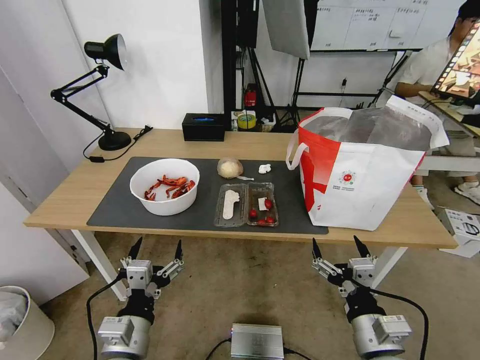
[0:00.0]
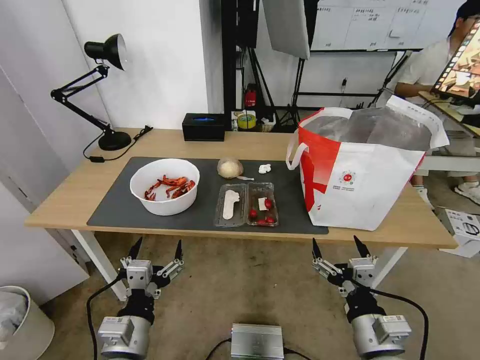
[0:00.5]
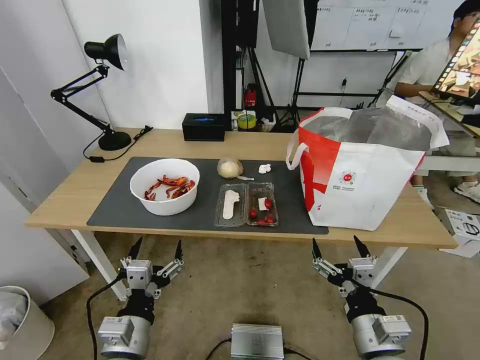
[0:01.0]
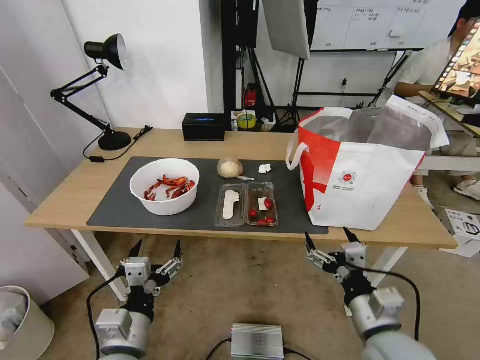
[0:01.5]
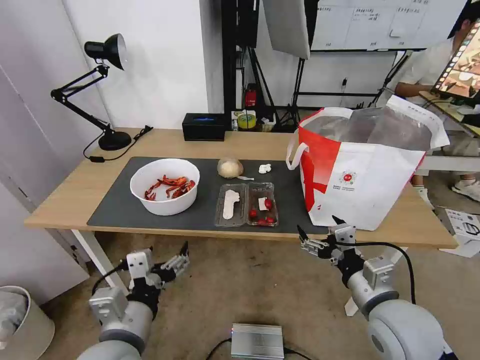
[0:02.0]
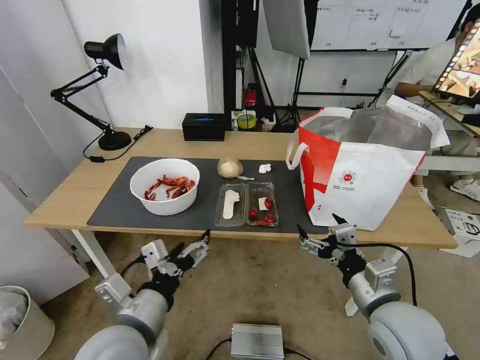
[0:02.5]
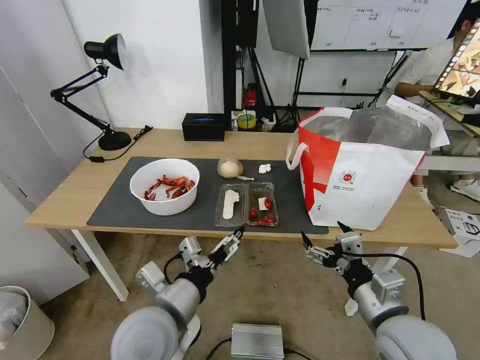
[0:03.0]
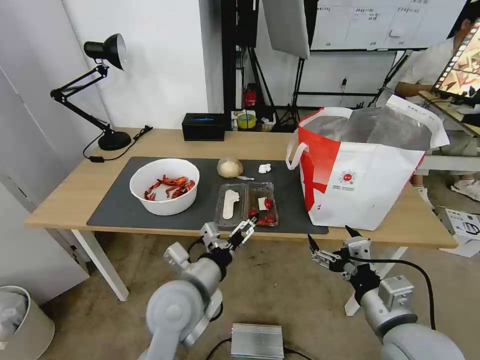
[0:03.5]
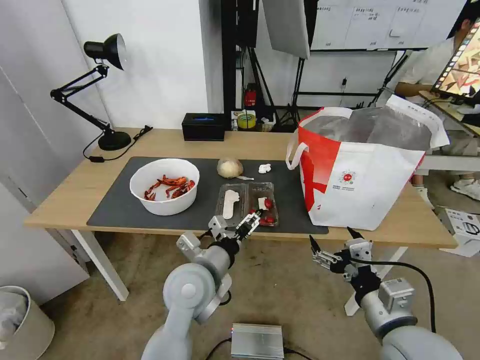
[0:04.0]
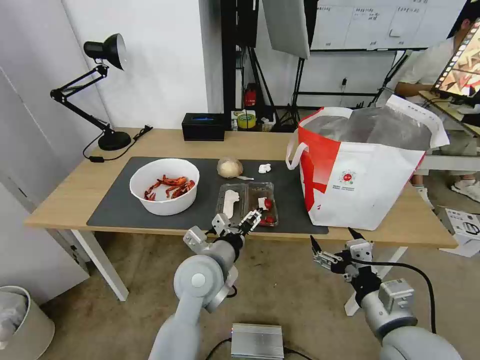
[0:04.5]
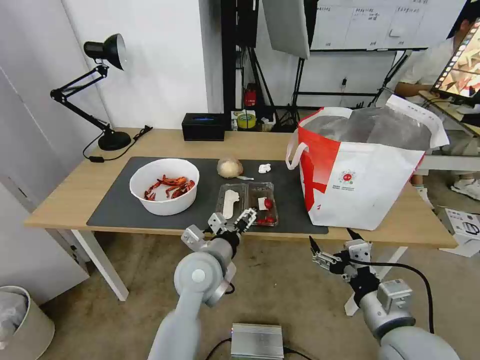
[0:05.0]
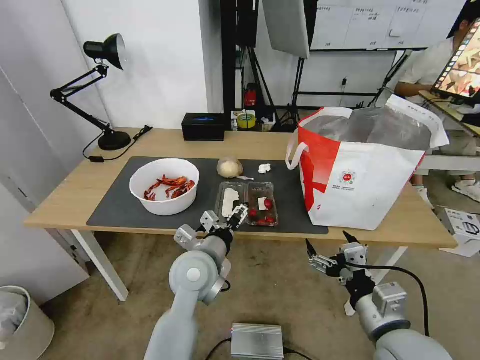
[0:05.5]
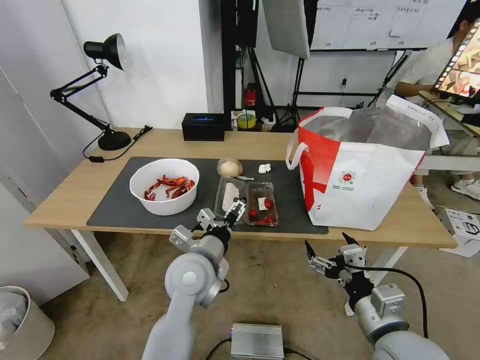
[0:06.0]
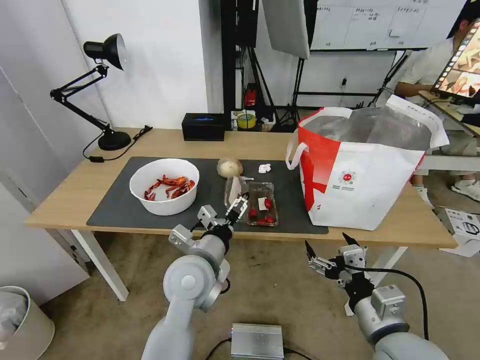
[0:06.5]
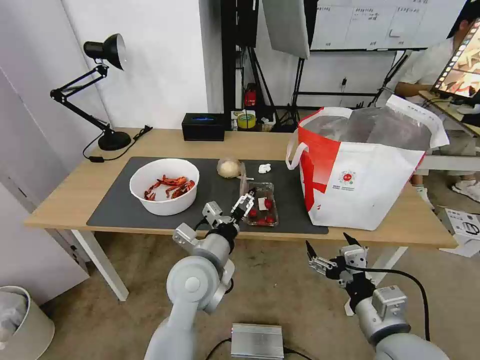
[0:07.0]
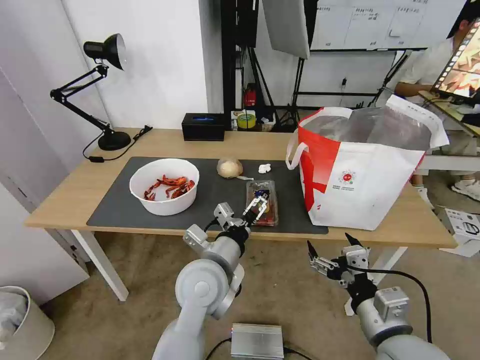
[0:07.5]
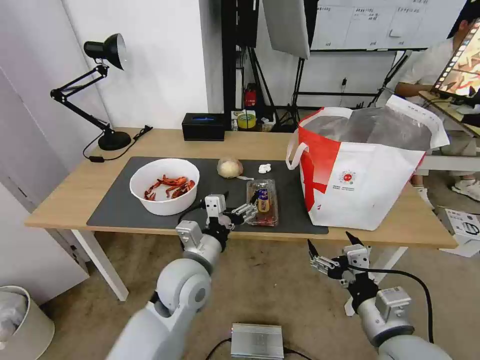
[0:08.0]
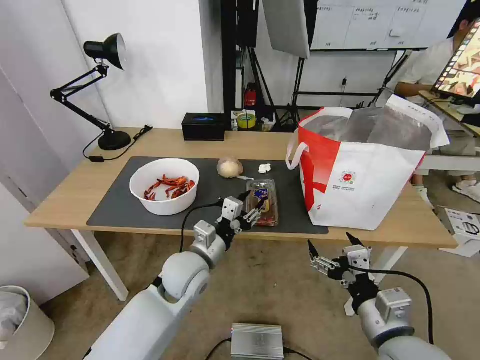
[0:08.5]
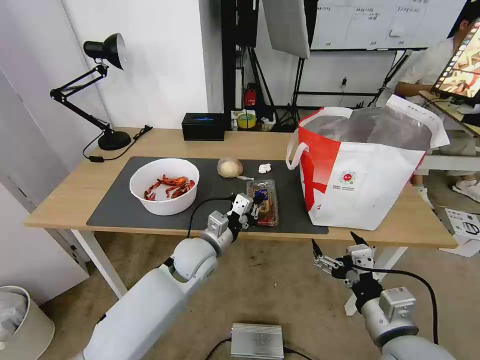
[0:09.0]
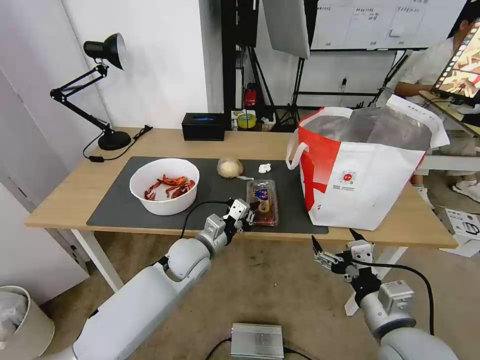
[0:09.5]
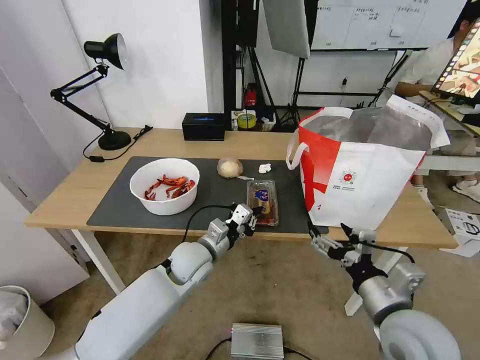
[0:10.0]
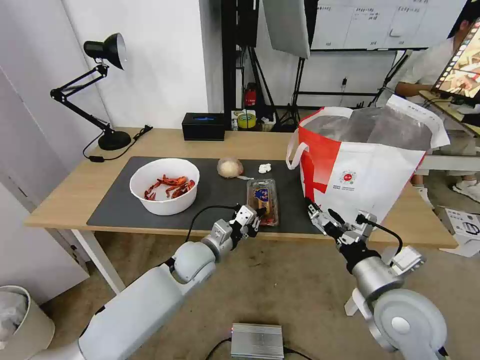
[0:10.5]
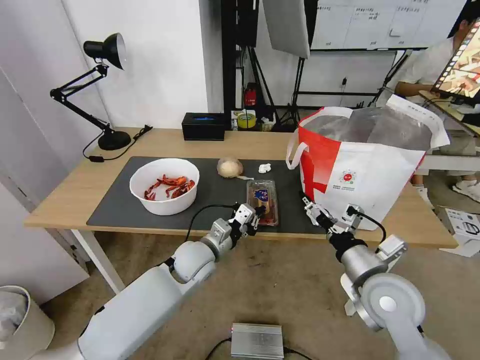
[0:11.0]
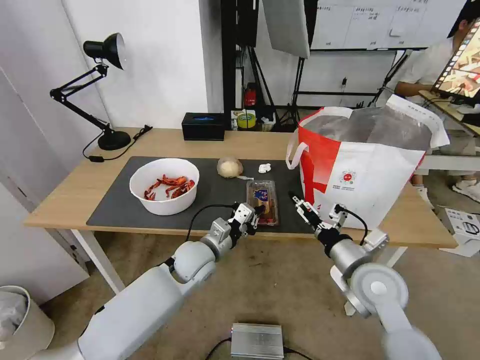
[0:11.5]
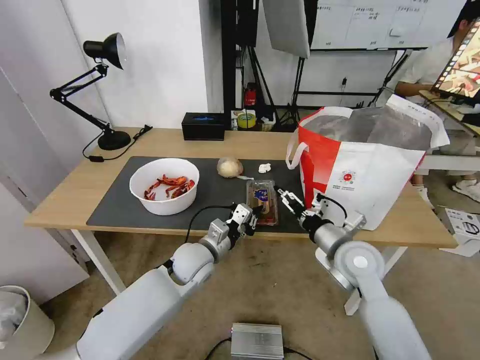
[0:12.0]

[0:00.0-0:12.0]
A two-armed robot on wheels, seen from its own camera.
Task of the whole recording: Pick up the trash from the table and place it into the takeout bag.
0:02.0 to 0:04.0: The left gripper moves forward and to the right, about 15 cm.
0:04.0 to 0:06.0: The grippers stay close to where they were, moving slightly.
0:08.0 to 0:10.0: The left gripper goes about 10 cm forward and downward, and closes up.
0:10.0 to 0:12.0: The right gripper goes roughly 15 cm forward.

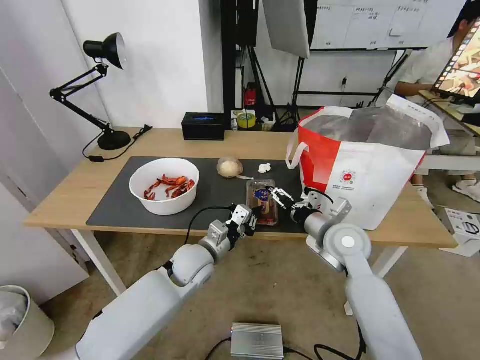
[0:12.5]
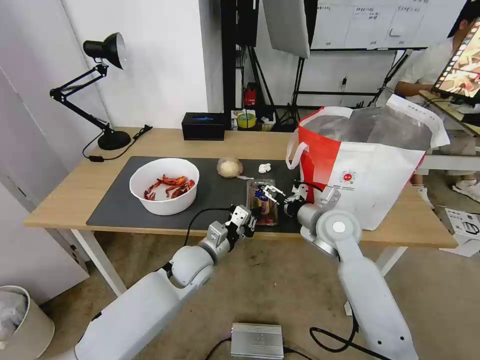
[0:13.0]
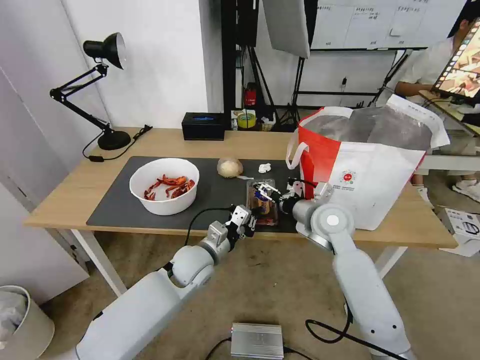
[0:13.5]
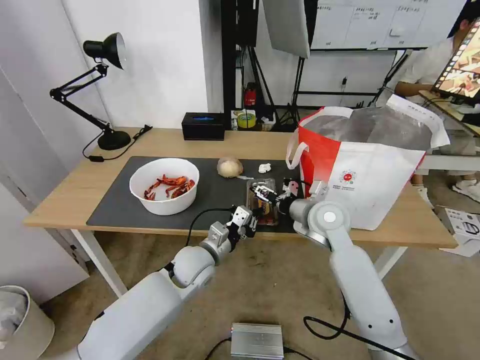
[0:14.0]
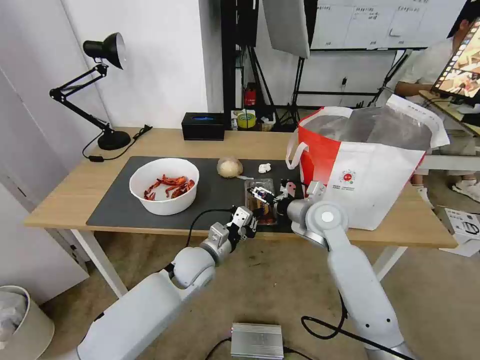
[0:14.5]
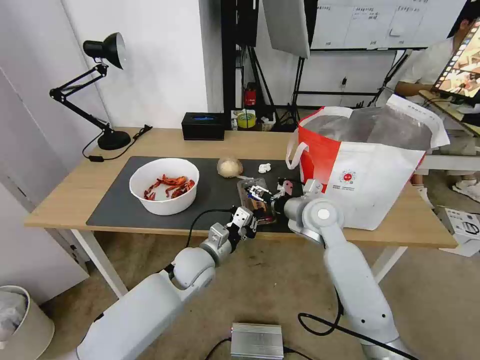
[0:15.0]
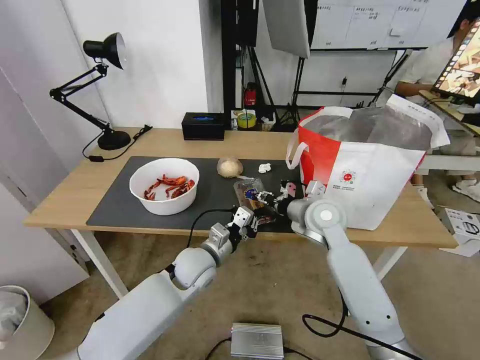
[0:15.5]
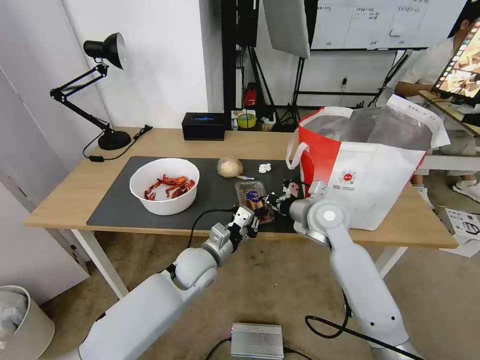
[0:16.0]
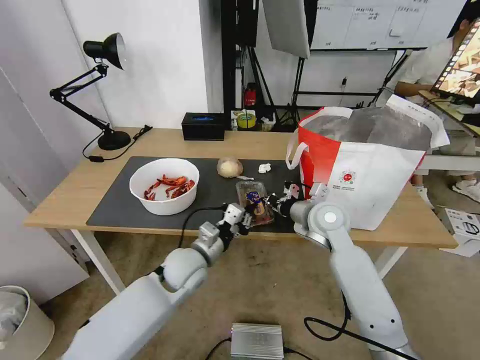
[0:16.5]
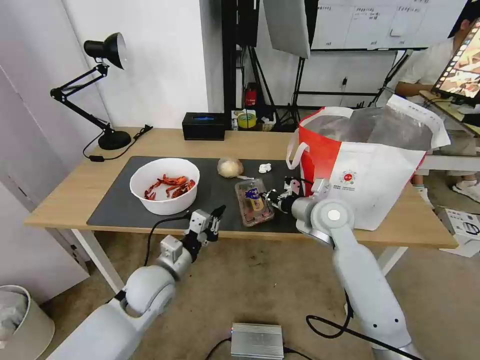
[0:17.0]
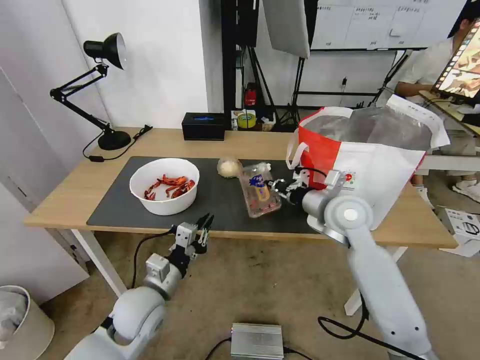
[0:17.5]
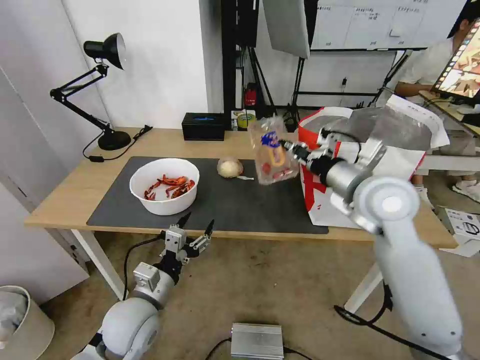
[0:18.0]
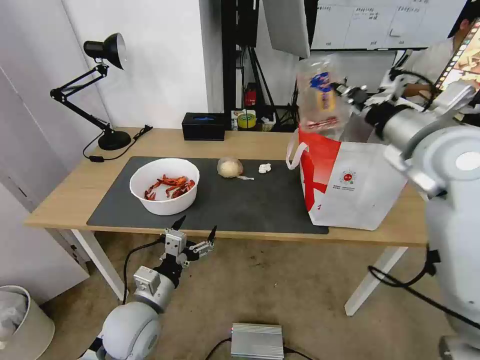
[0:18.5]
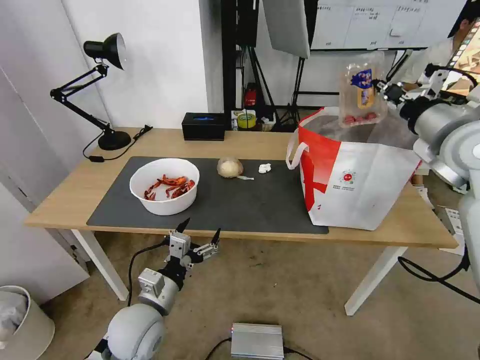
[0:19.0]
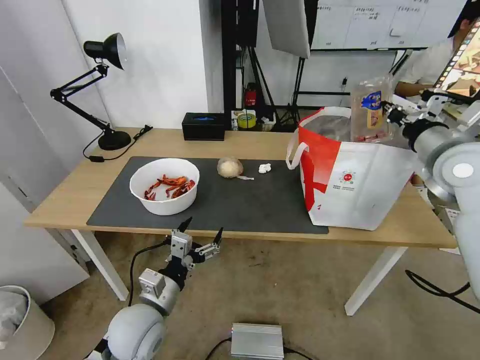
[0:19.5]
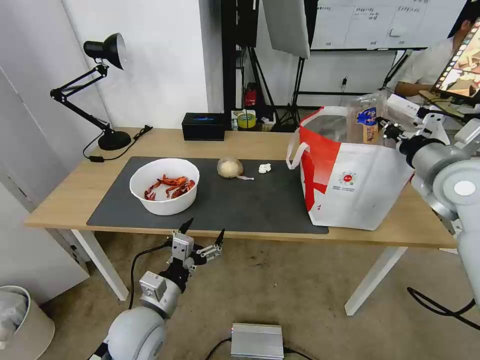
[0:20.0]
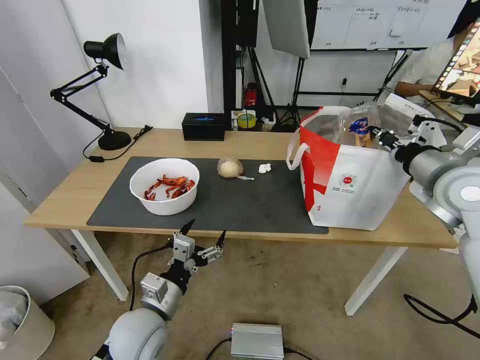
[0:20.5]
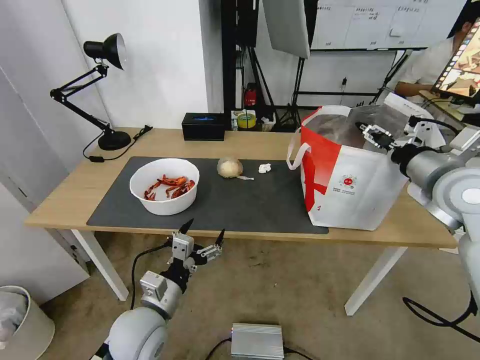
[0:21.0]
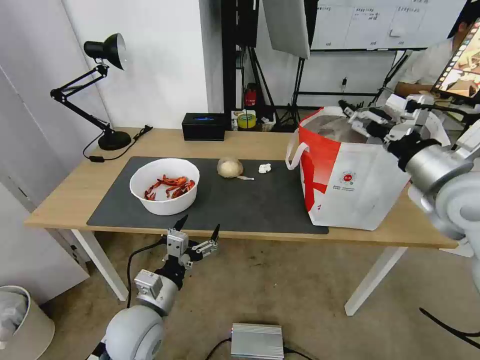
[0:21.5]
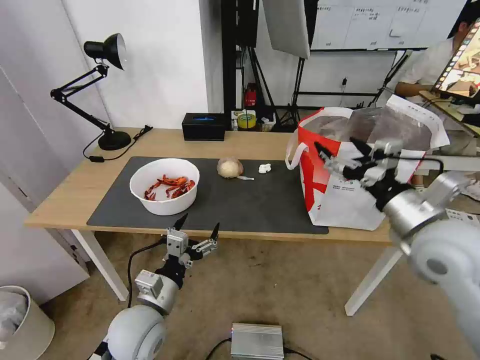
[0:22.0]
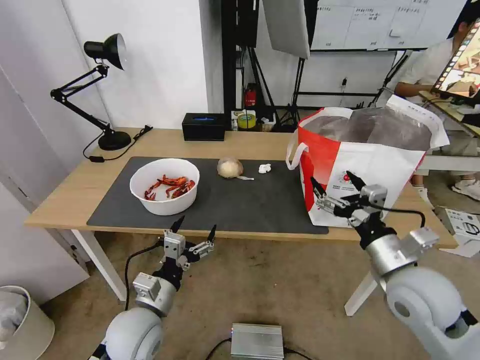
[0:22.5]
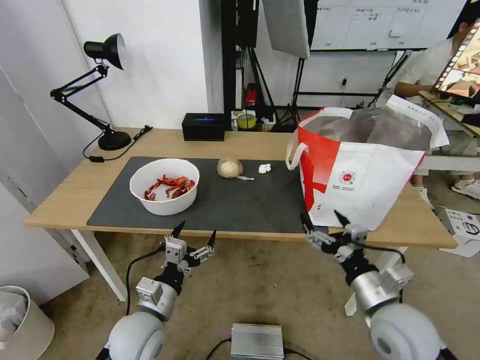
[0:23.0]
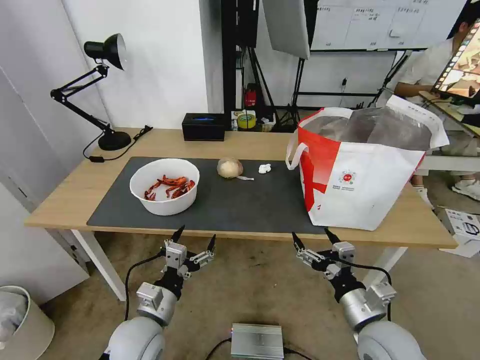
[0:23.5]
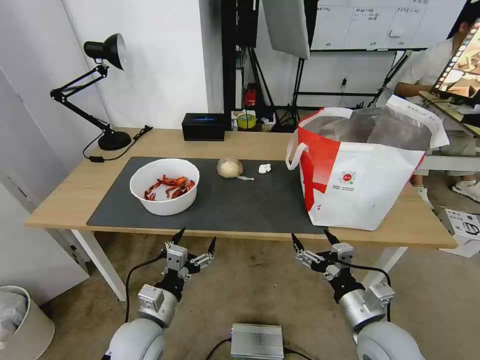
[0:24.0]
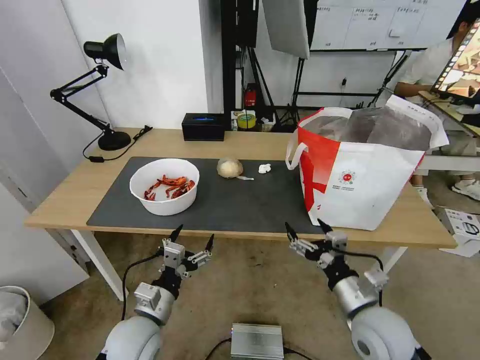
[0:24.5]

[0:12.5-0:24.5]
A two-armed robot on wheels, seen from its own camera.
Task of the whole recording: Pick up the trash from the table and place it into the takeout bag.
0:12.5 to 0:14.5: The right gripper heads forward, covering about 5 cm.
0:14.5 to 0:16.5: The right gripper closes up.
0:16.5 to 0:18.5: The left gripper goes approximately 15 cm backward and to the left, and opens, while the right gripper goes some 25 cm upward and to the right.
0:18.5 to 0:20.5: The right gripper shifts some 10 cm to the right and downward.
0:20.5 to 0:22.5: The right gripper travels downward, backward and to the left by about 20 cm, and opens up.
0:22.5 to 0:24.5: The right gripper moves downward, approximately 10 cm.

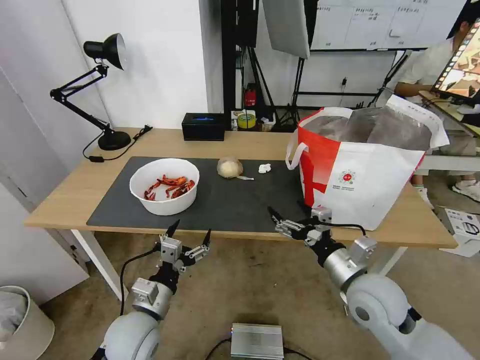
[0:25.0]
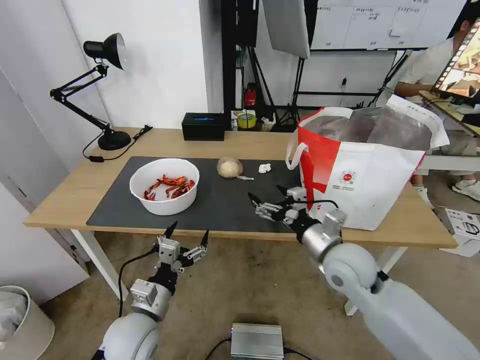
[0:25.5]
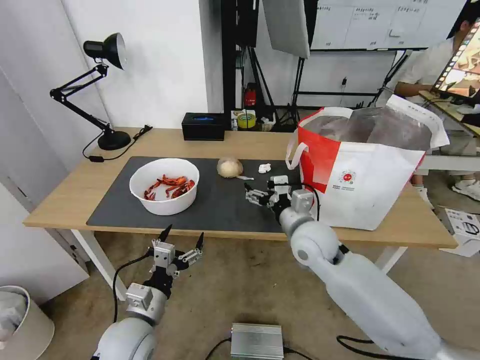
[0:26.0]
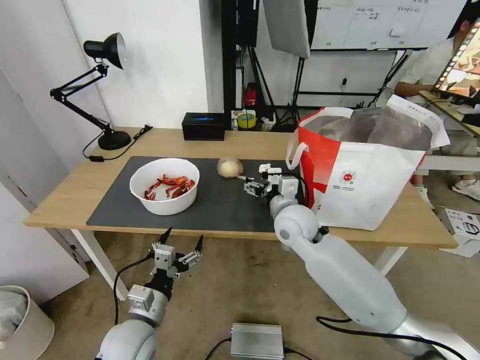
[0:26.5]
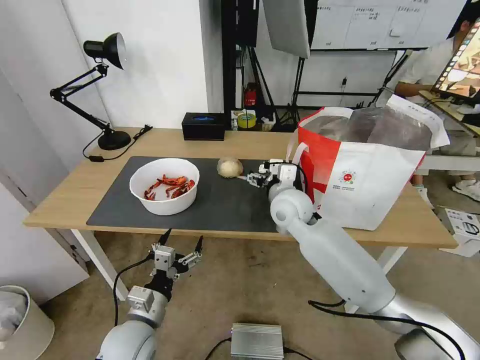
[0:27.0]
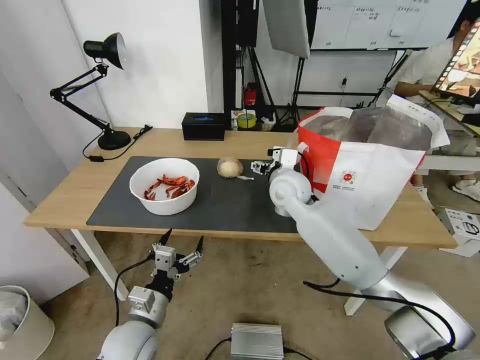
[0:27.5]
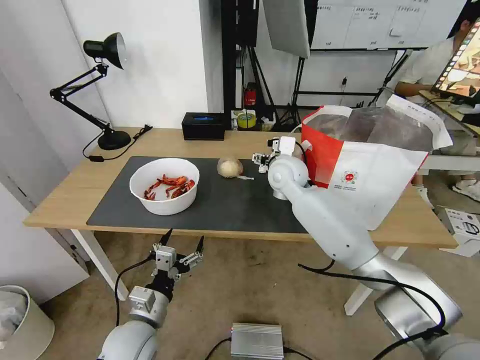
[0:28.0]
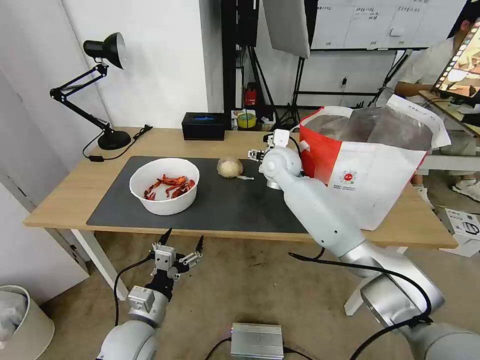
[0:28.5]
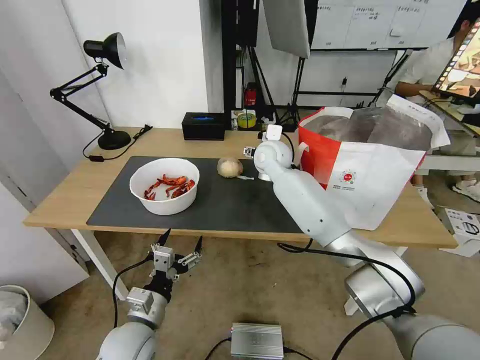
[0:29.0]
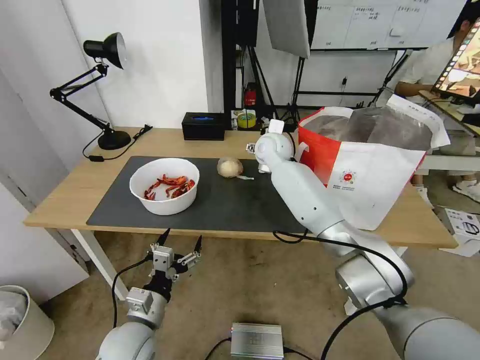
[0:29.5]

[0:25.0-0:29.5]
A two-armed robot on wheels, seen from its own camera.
Task of the whole recording: Pick up the trash from the table and place it into the takeout bag.
0:25.0 to 0:27.0: The right gripper goes about 25 cm forward and to the left.
0:27.0 to 0:29.5: The right gripper moves forward, approximately 15 cm.
